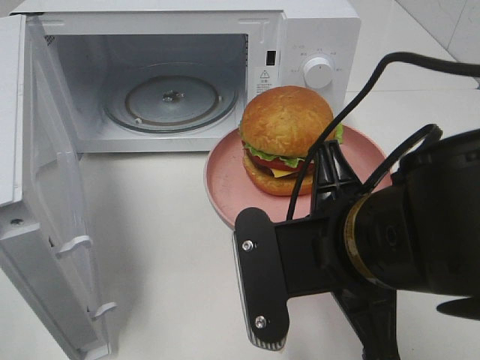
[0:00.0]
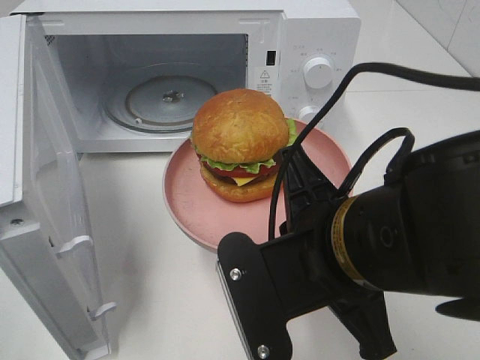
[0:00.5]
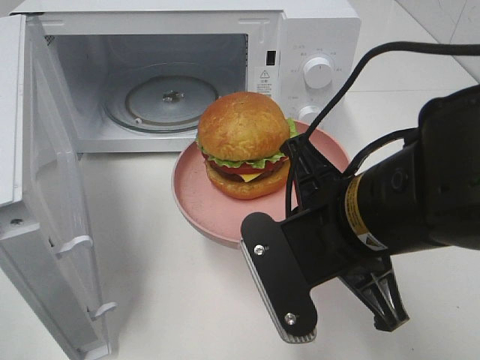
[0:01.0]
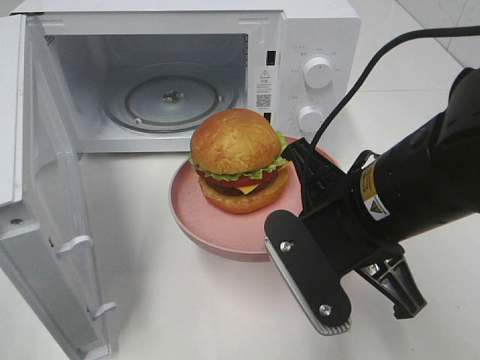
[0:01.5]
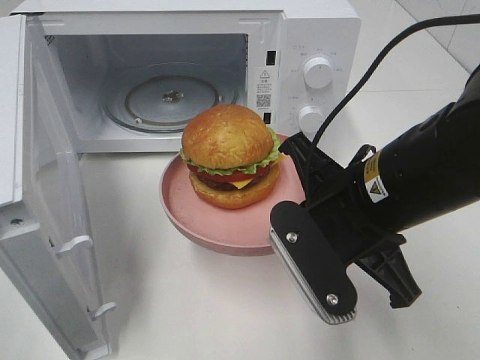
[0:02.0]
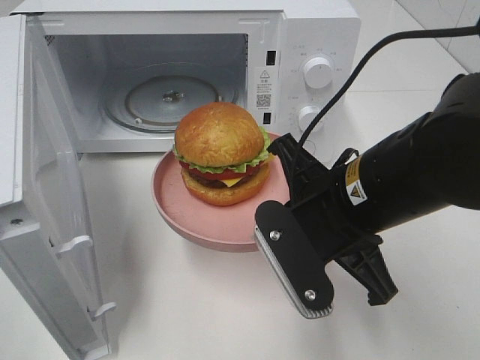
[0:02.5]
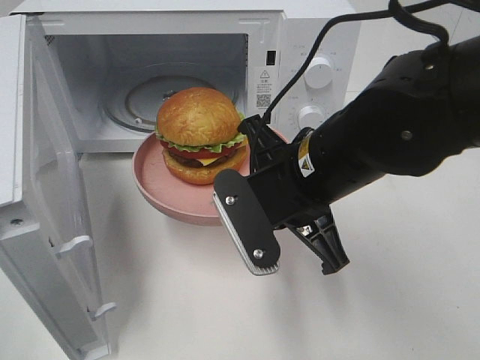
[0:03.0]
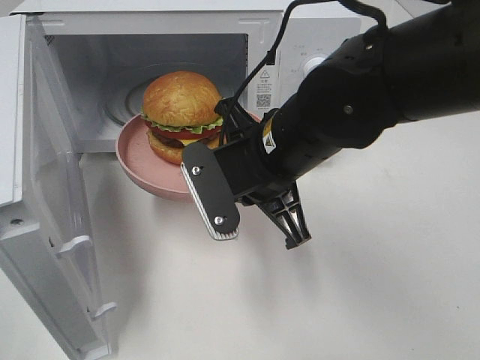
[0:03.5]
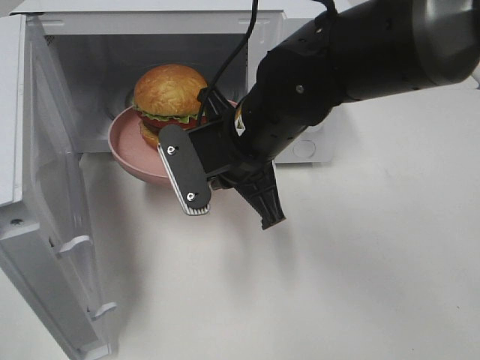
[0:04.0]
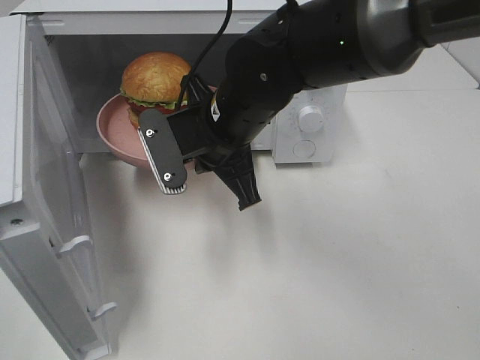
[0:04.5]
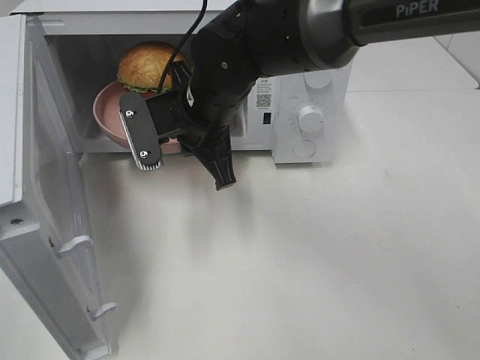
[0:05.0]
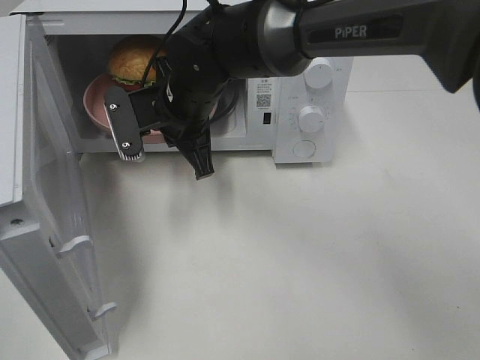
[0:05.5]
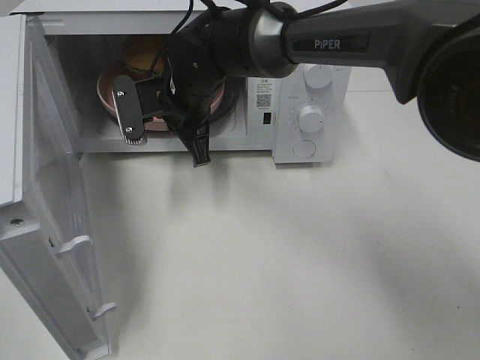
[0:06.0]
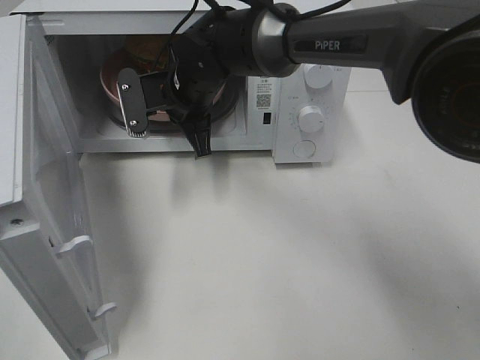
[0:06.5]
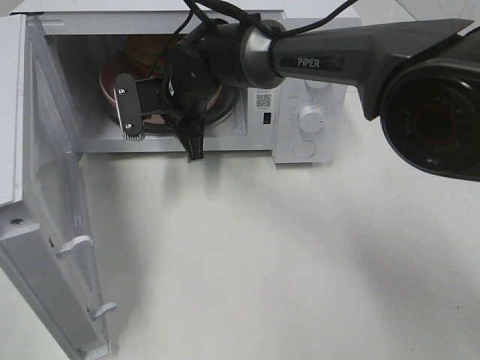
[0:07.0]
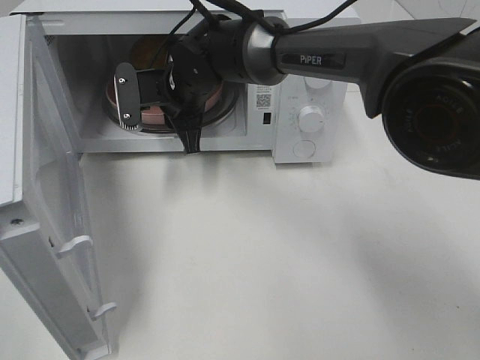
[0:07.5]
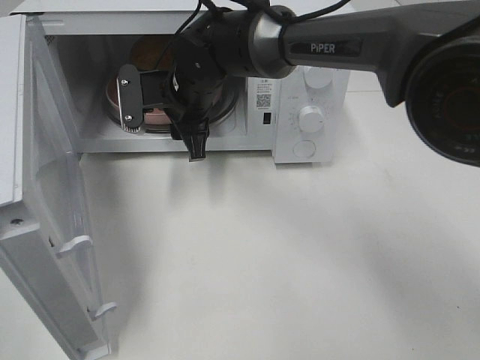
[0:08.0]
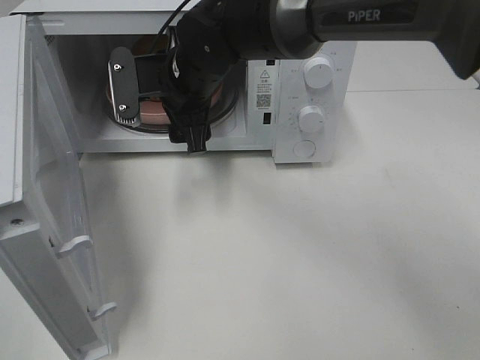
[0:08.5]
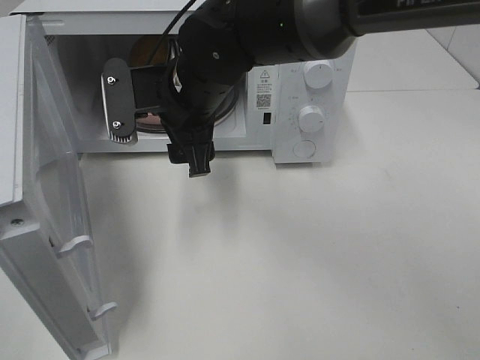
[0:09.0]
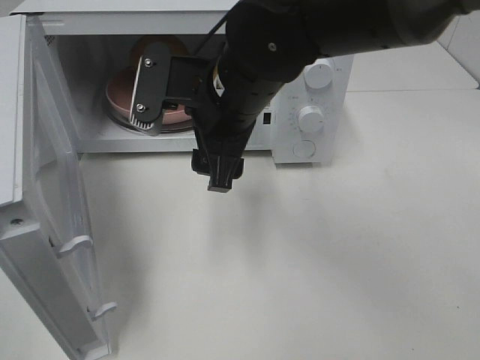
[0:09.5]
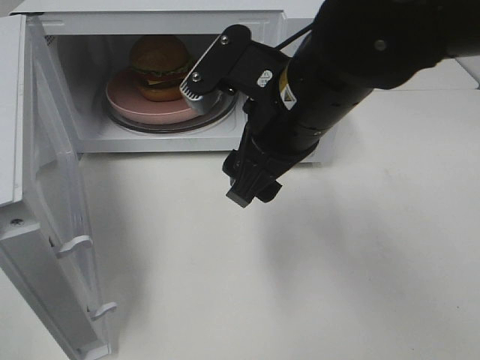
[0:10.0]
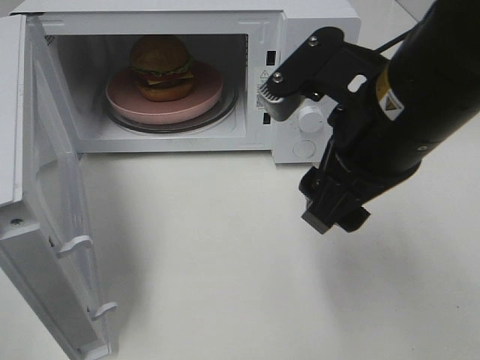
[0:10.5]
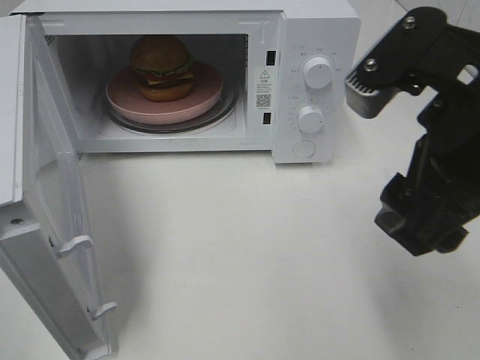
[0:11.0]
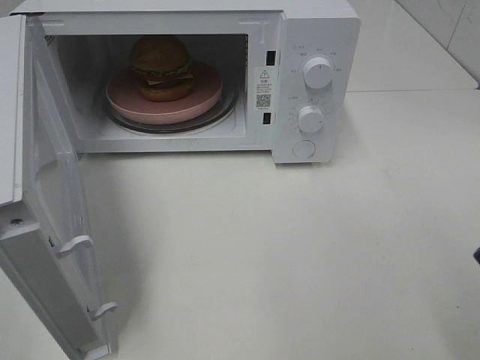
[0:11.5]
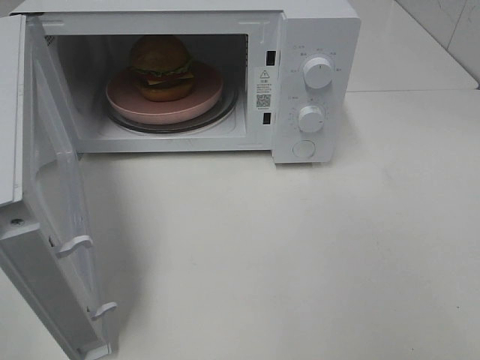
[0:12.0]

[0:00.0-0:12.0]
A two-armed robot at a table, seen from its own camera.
Task of the whole recording: Heat the burger.
Step, 0:00.0 to 0:07.0: Right hand: place the plate in the microwave.
0:00.0 to 0:02.0: The right gripper travels forward by some 5 cm.
0:02.0 to 0:04.0: The right gripper travels forward and to the left by some 15 cm.
0:04.0 to 0:06.0: The right gripper heads forward and to the left, covering roughly 15 cm.
0:06.0 to 0:08.0: The right gripper opens up.
0:08.0 to 0:10.0: The right gripper goes approximately 20 cm backward, to the right and upward.
0:10.0 to 0:12.0: The right gripper goes some 30 cm to the right and backward.

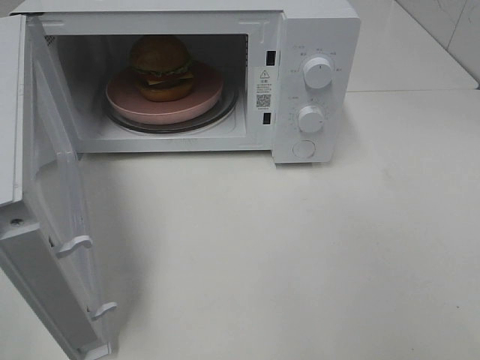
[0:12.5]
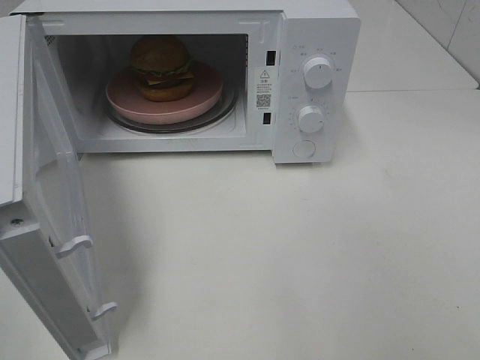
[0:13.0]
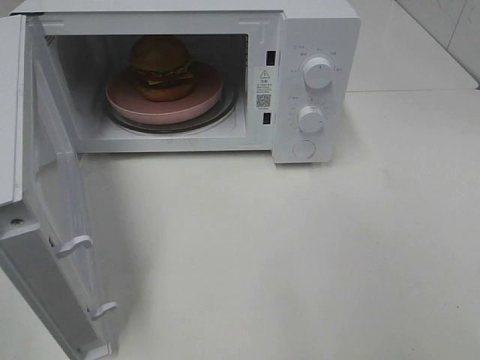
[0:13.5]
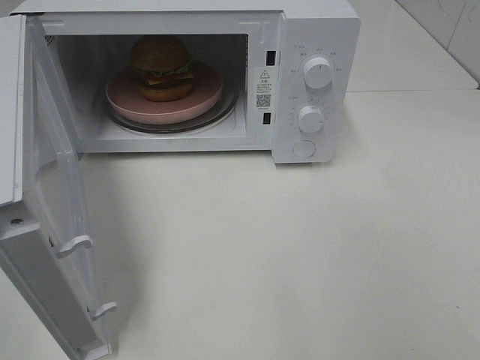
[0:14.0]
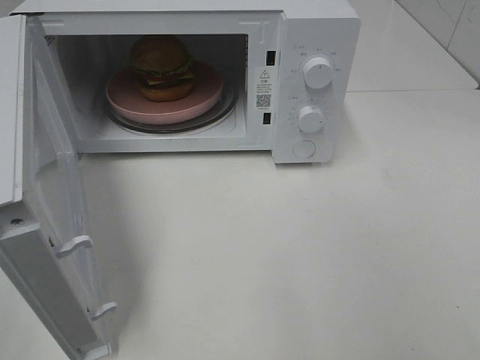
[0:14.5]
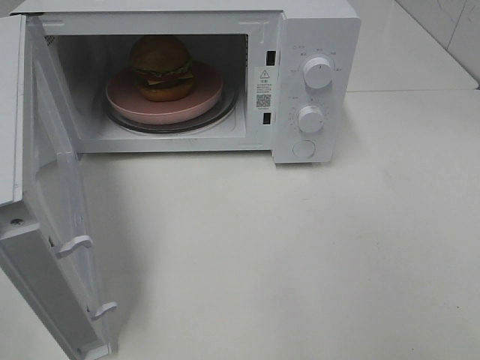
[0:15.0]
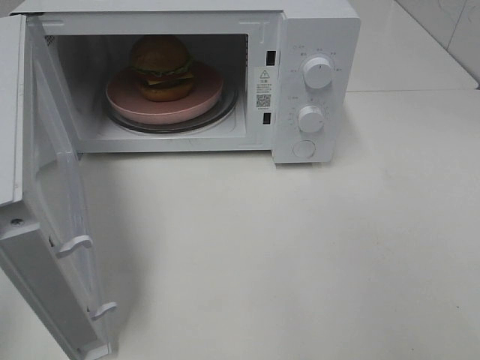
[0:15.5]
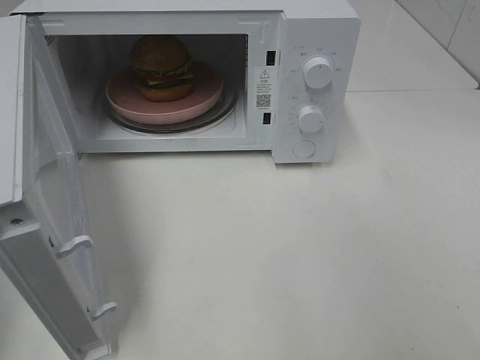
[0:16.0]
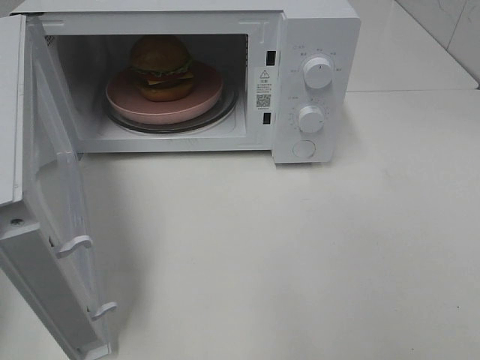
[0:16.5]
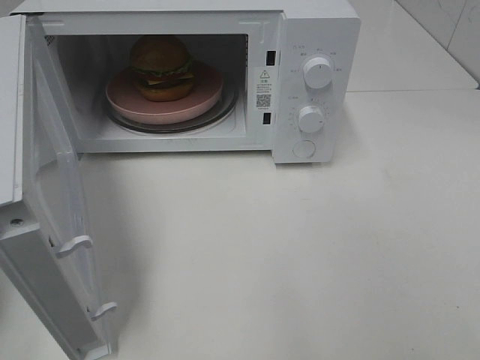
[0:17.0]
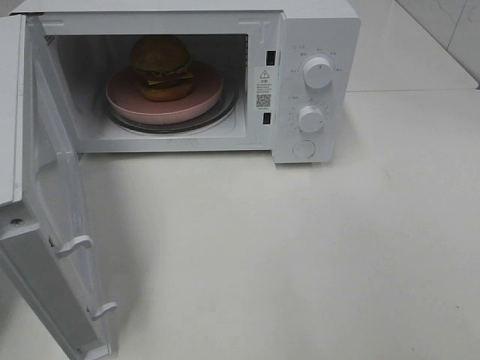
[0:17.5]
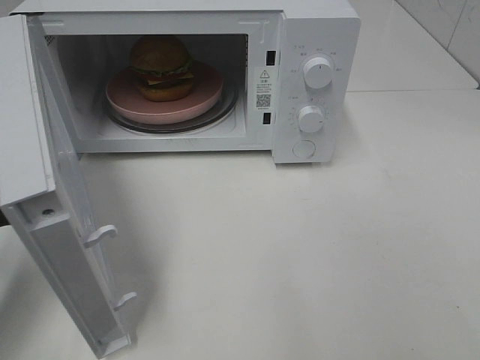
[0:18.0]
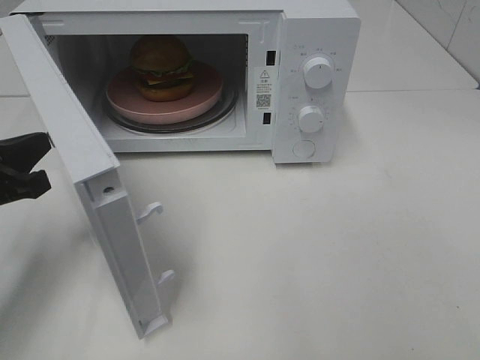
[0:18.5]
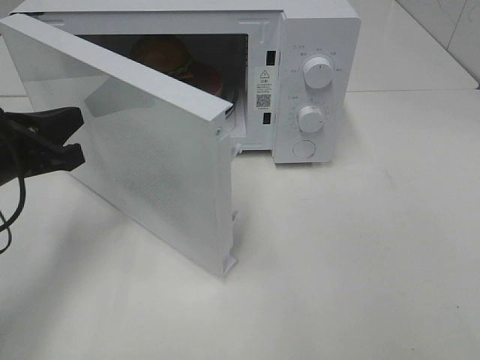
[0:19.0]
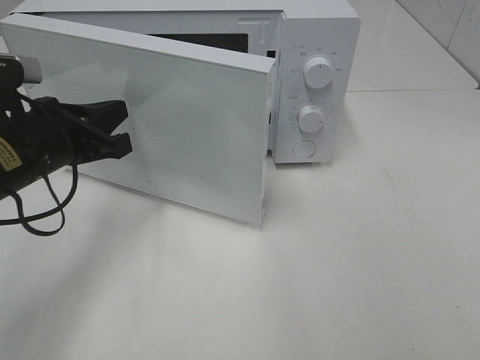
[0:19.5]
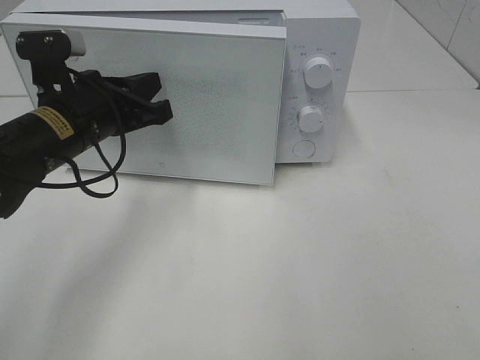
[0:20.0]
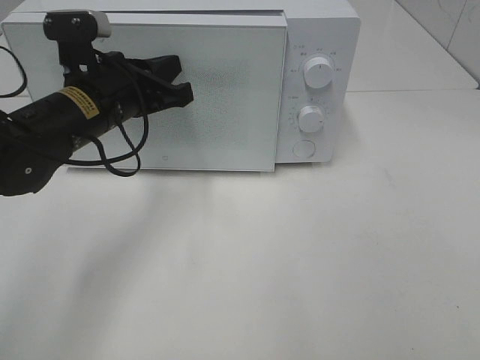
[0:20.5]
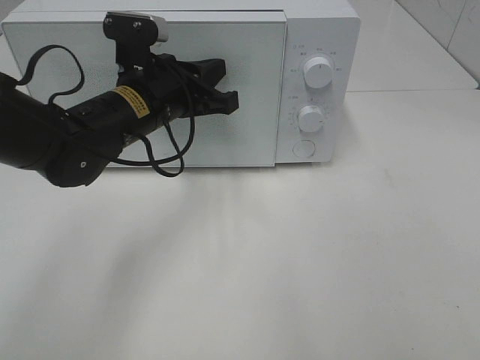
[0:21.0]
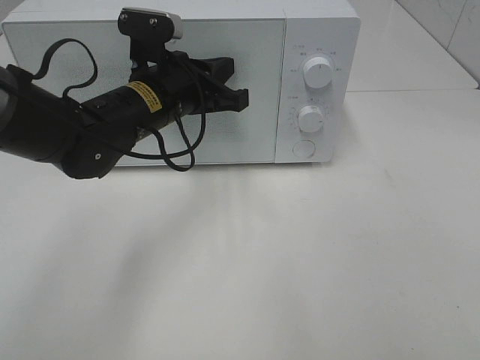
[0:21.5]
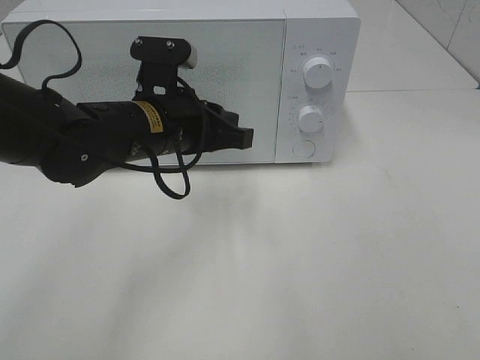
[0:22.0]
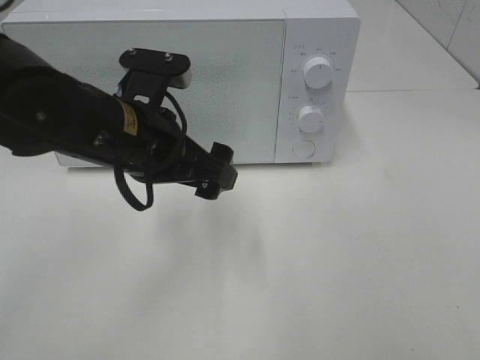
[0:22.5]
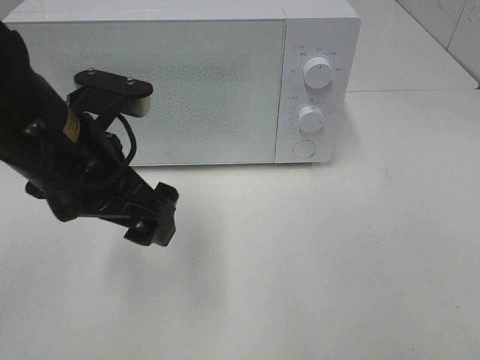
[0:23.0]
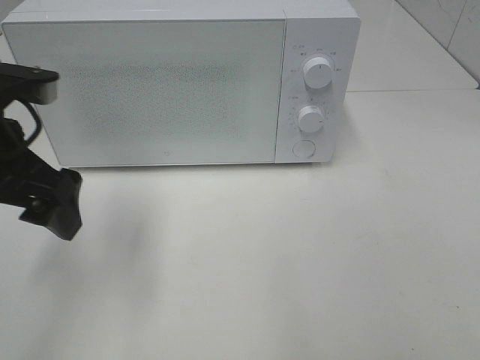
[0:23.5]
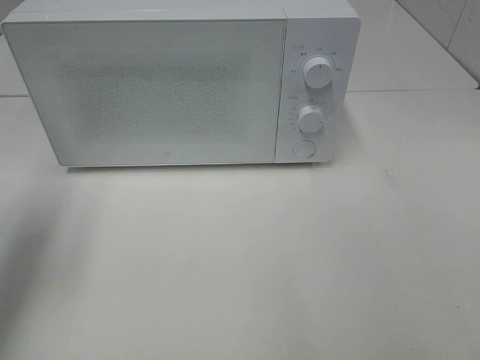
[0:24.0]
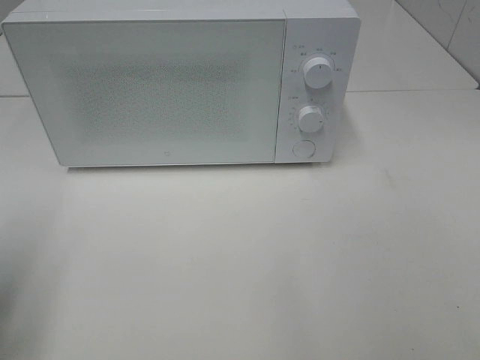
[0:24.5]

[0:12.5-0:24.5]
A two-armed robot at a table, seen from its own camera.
Task of the whole recording: Heat the burger.
Step, 0:12.5 to 0:21.5: Left hand: close the microwave door.
0:16.5 to 0:18.5: The left gripper shifts about 15 cm forward, downward and to the right.
0:18.5 to 0:20.5: The left gripper is displaced to the right and forward by about 15 cm.
0:20.5 to 0:22.5: The left gripper shifts roughly 5 cm backward, and opens.
0:22.5 to 0:24.5: The left gripper heads to the left and backward, covering approximately 25 cm.

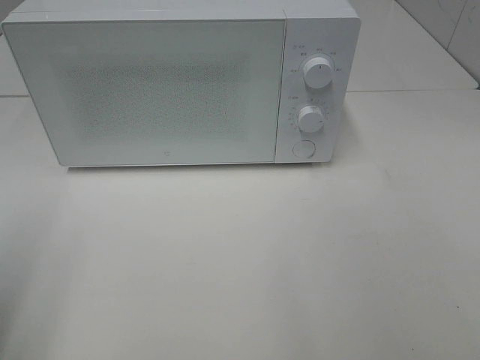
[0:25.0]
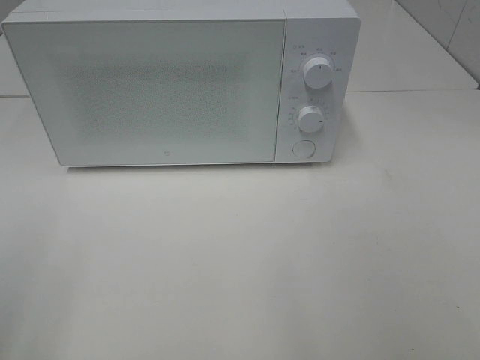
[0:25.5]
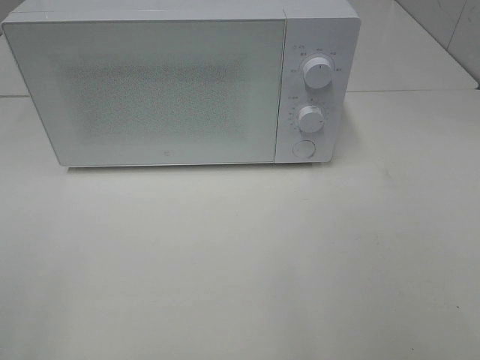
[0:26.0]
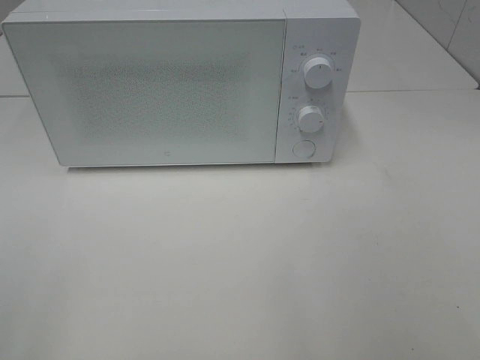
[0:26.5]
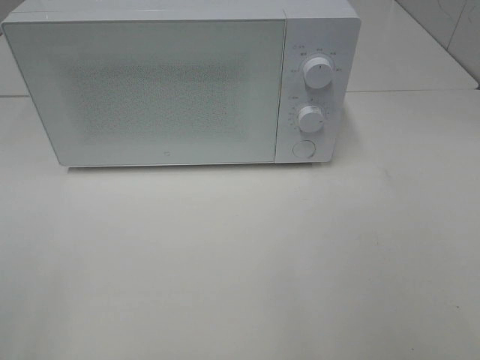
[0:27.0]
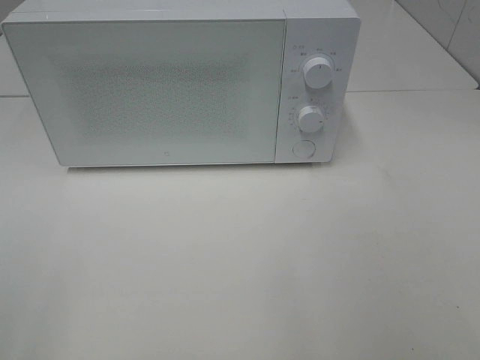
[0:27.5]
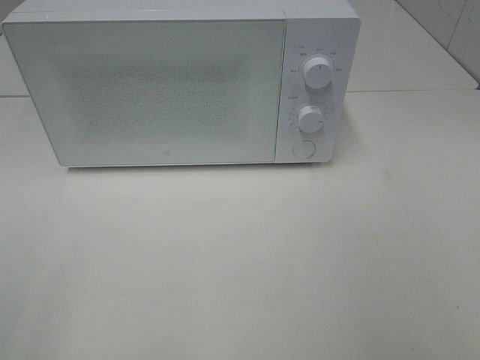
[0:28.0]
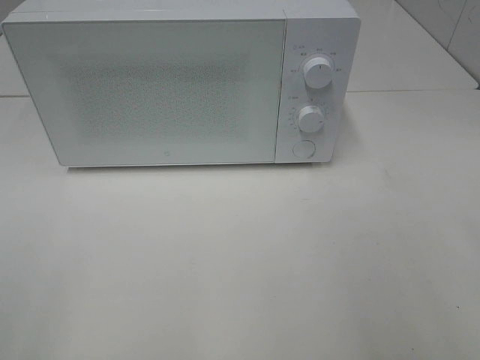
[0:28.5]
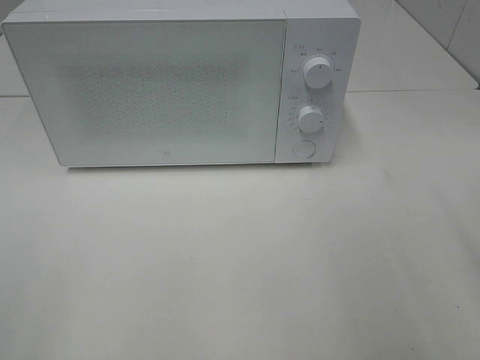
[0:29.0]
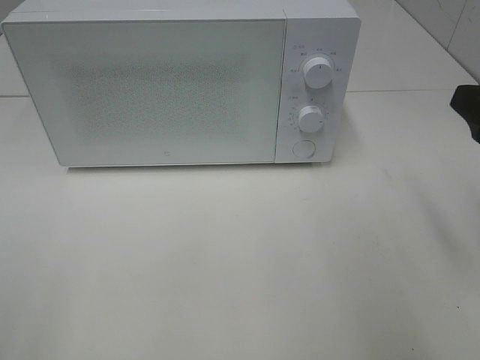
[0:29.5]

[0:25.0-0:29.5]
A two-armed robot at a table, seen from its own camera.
Task of the whole recording: Heat the burger.
0:27.0 to 0:29.5: The right gripper is displaced forward by some 20 cm.
